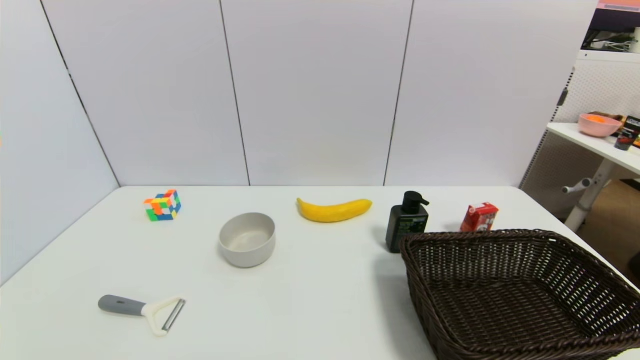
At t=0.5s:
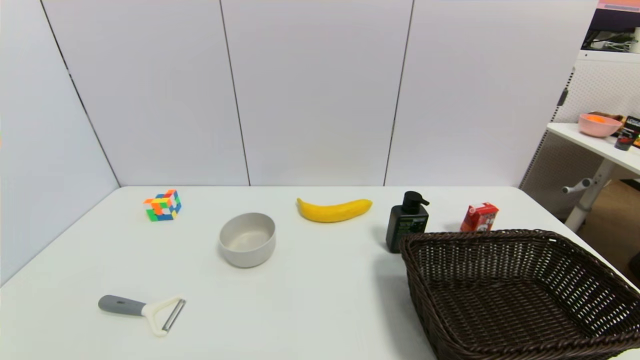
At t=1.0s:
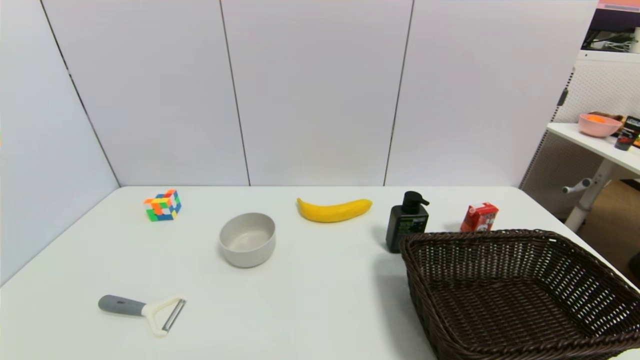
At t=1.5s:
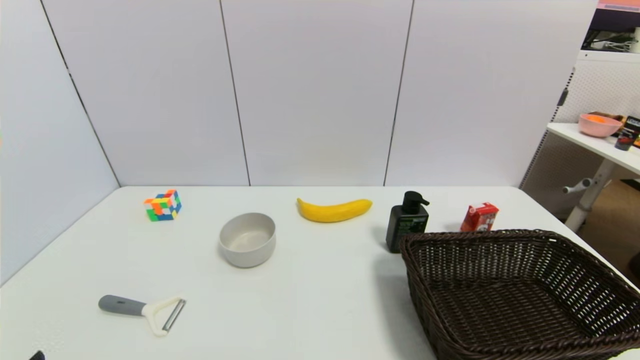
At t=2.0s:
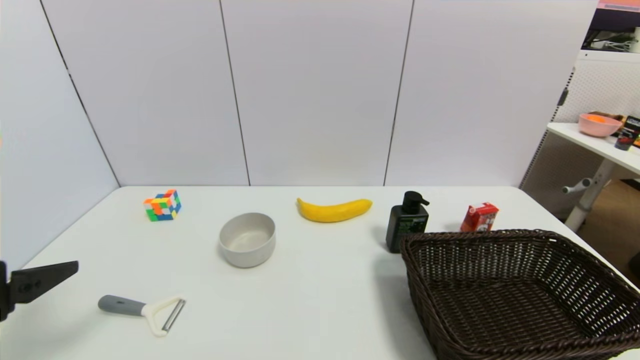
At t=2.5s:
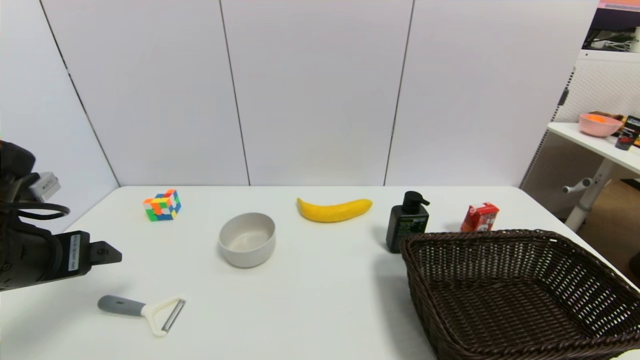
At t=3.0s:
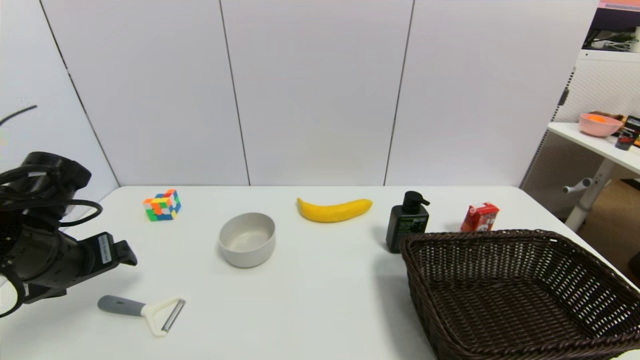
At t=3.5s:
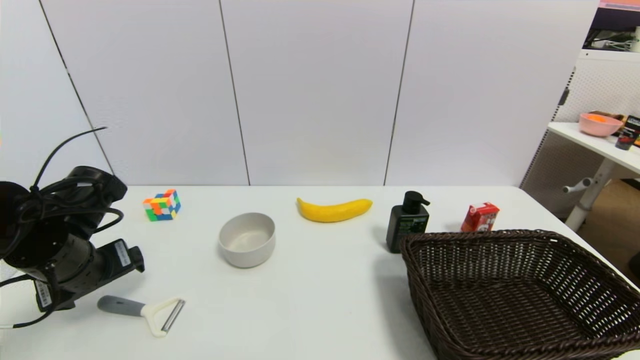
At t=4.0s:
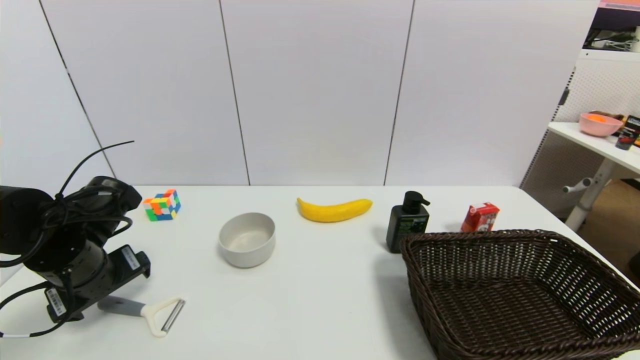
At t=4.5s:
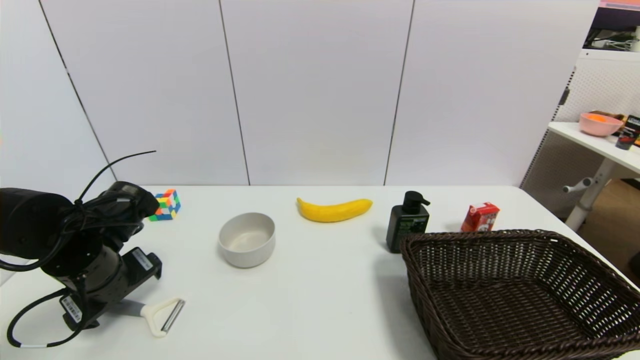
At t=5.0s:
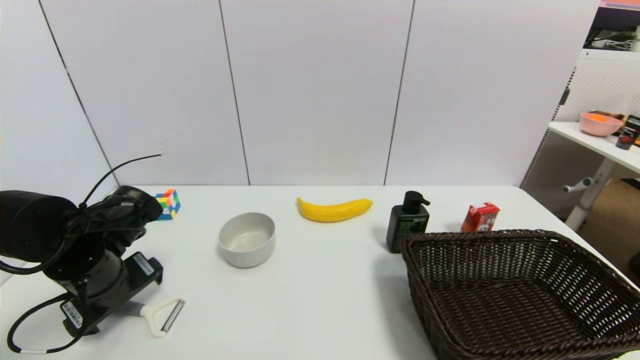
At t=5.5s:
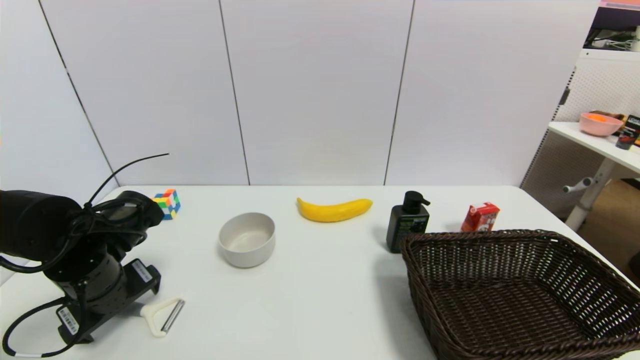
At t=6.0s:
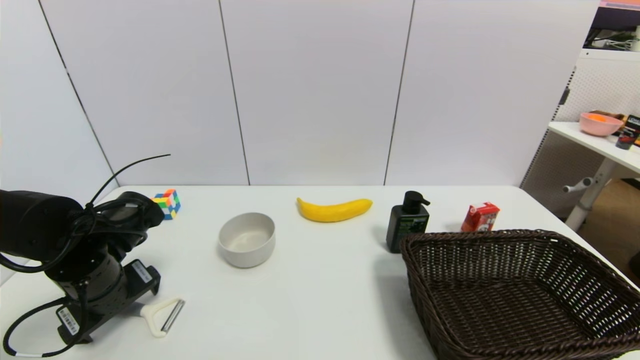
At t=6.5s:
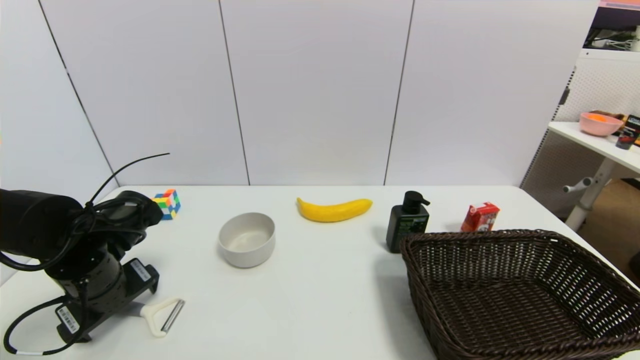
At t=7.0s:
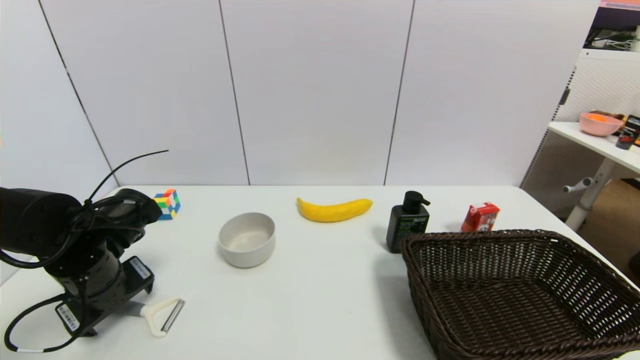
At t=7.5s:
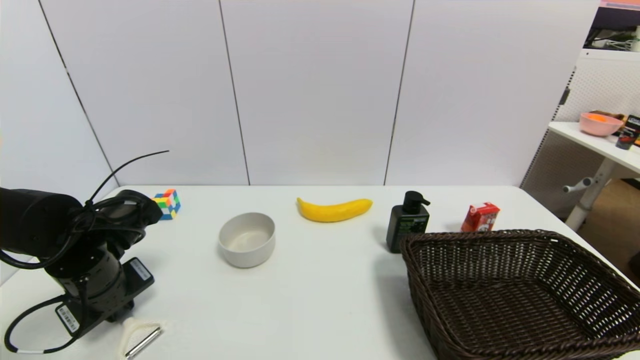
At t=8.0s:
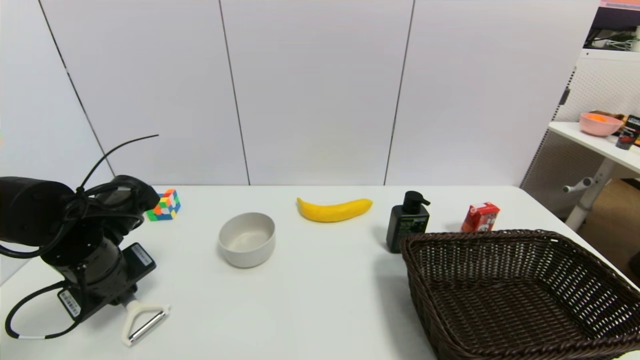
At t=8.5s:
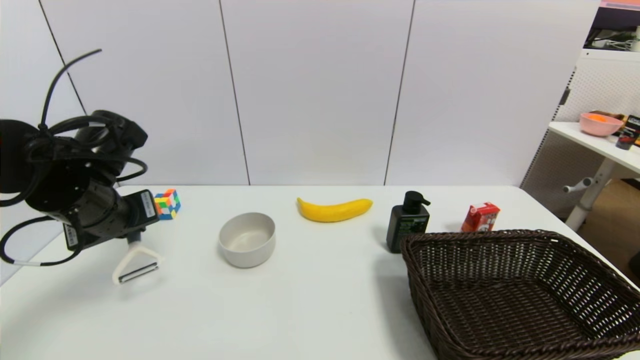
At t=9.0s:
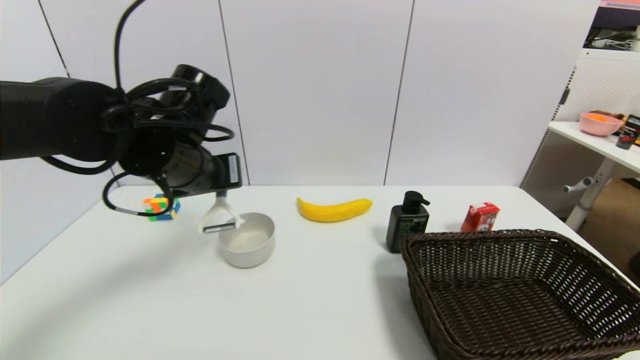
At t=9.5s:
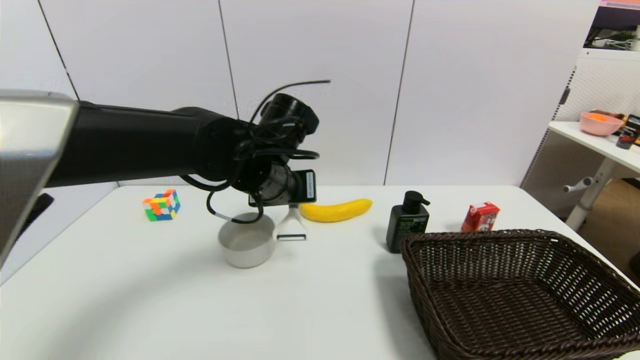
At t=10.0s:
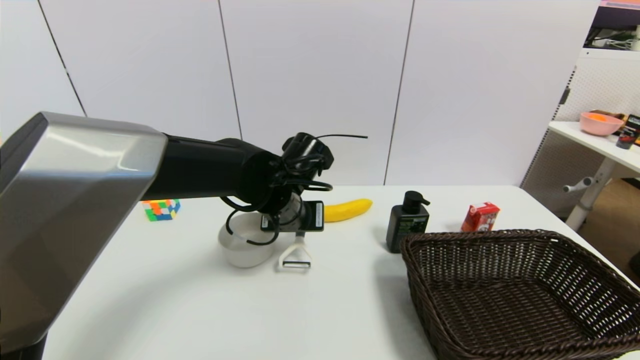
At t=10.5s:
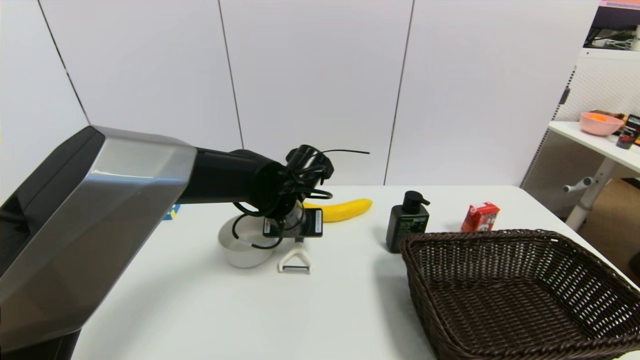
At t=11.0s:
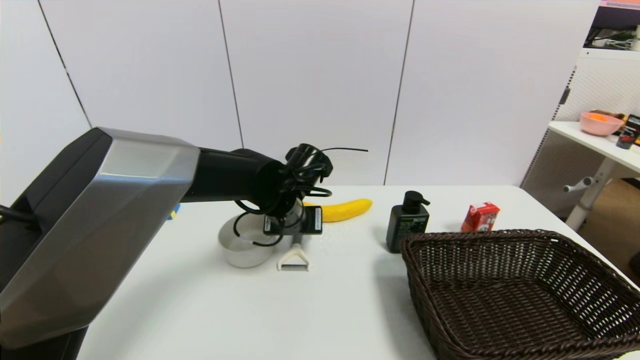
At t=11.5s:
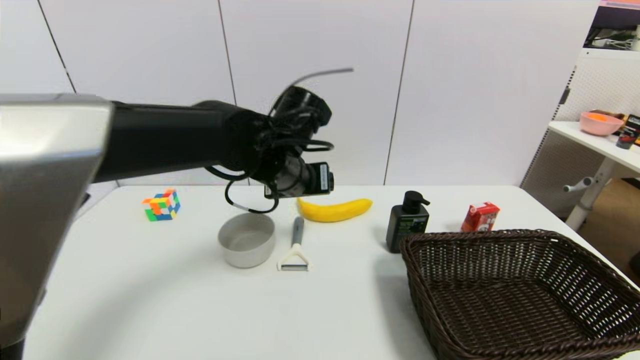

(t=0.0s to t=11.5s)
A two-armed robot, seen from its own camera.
Step, t=2.0s - t=8.0s: Grasp the peeler with left gripper.
Step, t=8.5s - t=11.0s: Place the peeler on the table with left gripper.
t=0.0s - t=2.0s: The left gripper is displaced upward and forward by roughly 20 cm.
t=2.0s - t=4.0s: The left gripper moves forward and downward, about 20 cm.
t=4.0s - t=6.0s: The grippers make only small movements.
t=6.0s - t=7.5s: The left gripper closes its fingers.
t=7.5s - t=9.5s: The left gripper goes roughly 25 cm to the right and upward.
t=9.5s - t=11.5s: The left gripper goes downward and returns, approximately 10 cm each way, and opens its fingers.

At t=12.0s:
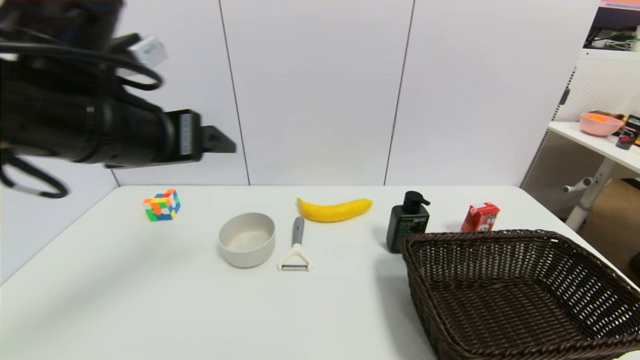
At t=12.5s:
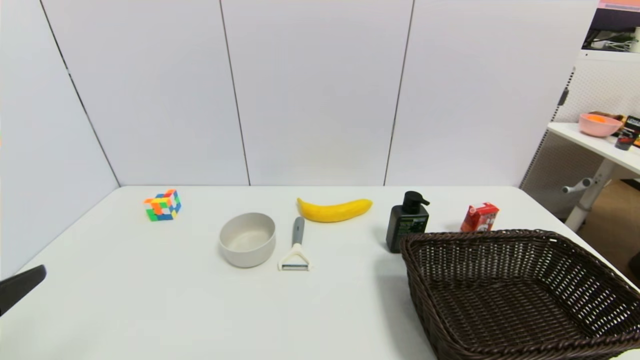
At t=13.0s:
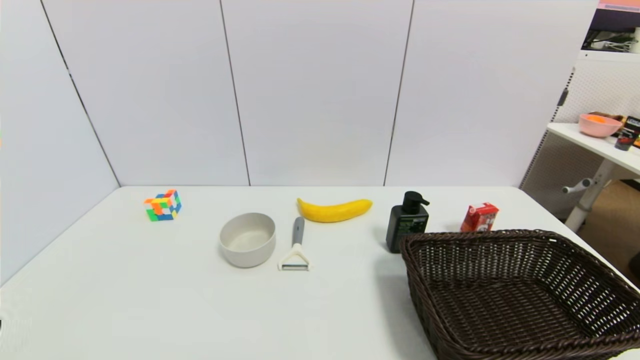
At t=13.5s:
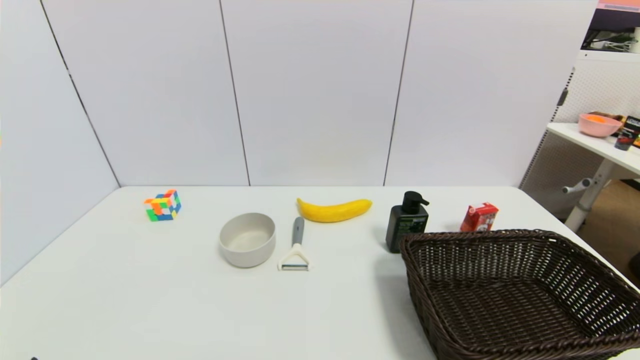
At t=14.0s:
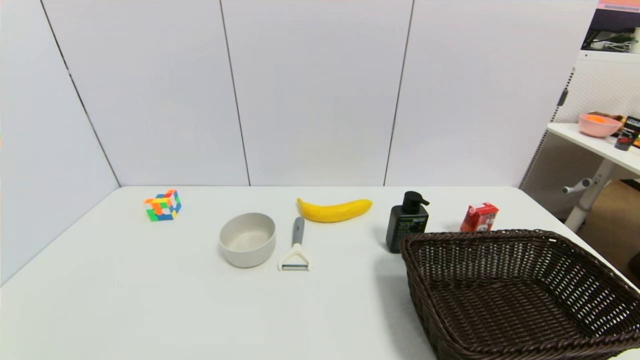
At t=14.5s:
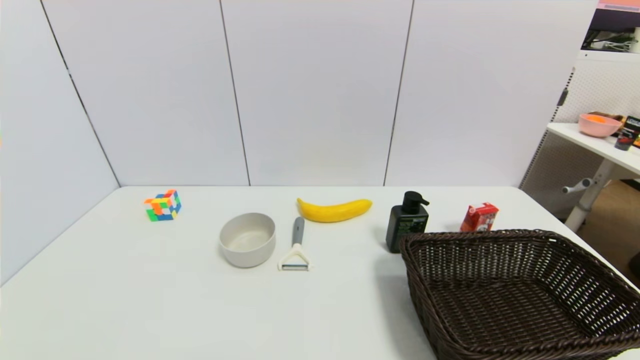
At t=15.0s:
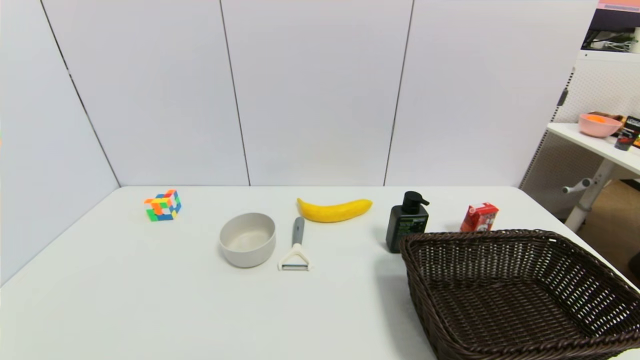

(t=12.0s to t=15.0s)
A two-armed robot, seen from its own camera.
t=12.0s - t=13.5s: The left gripper moves backward, downward and to the left, about 30 cm.
